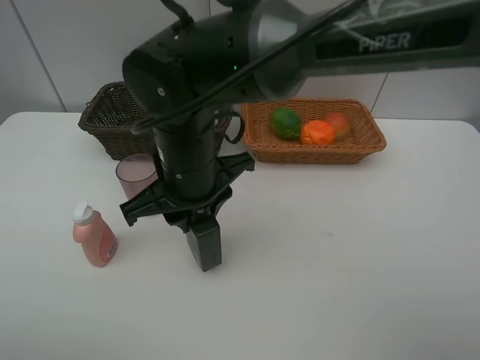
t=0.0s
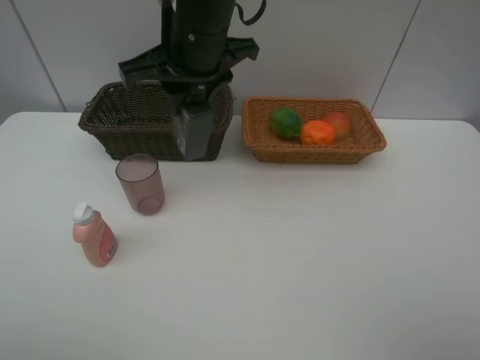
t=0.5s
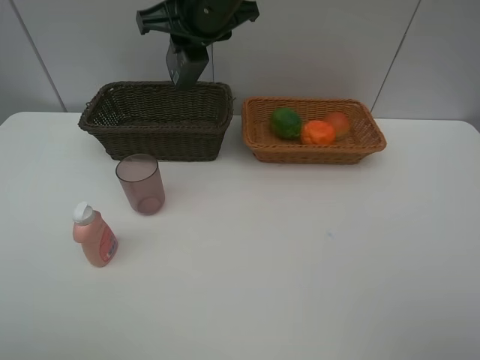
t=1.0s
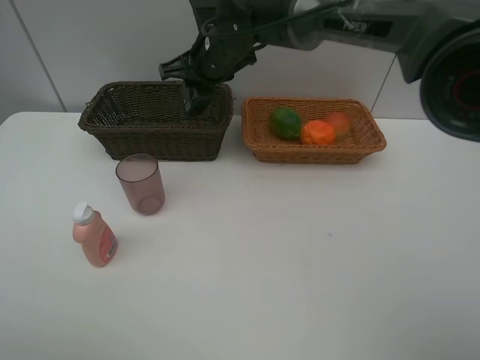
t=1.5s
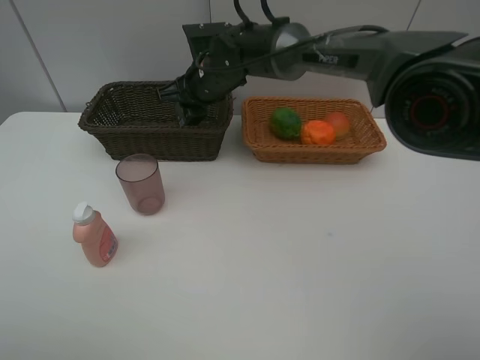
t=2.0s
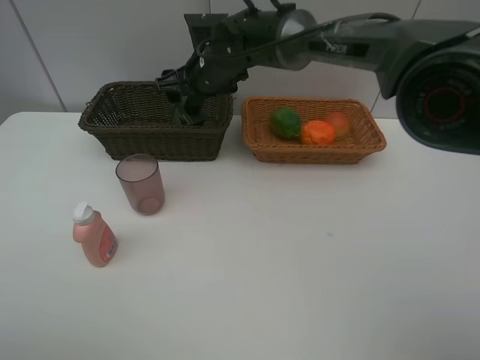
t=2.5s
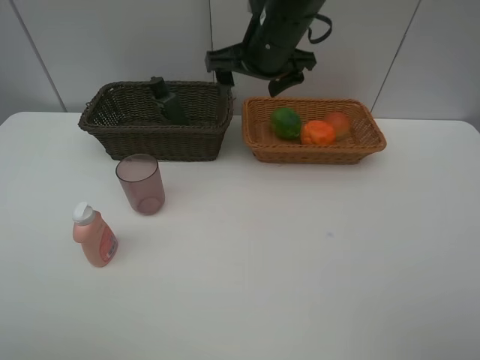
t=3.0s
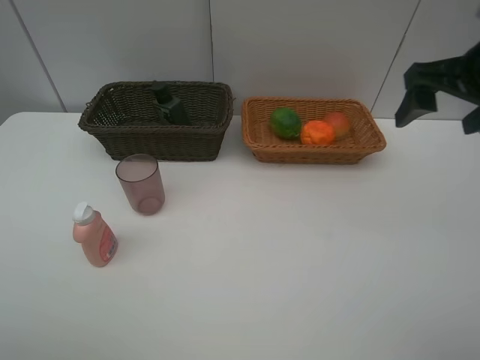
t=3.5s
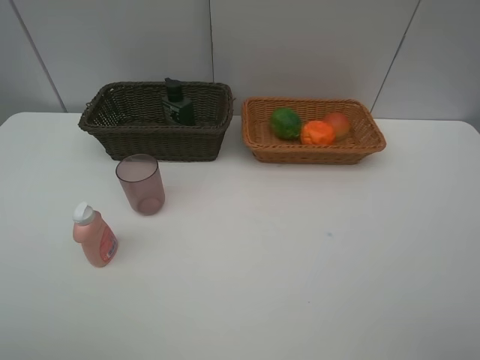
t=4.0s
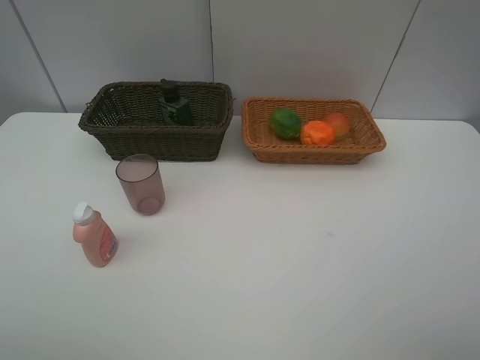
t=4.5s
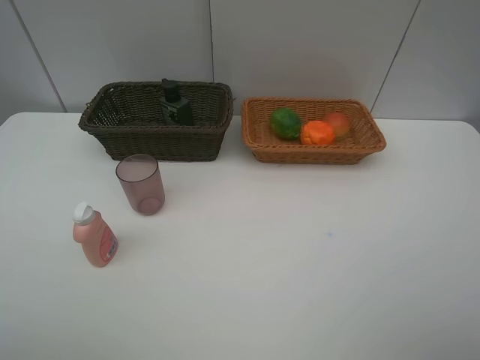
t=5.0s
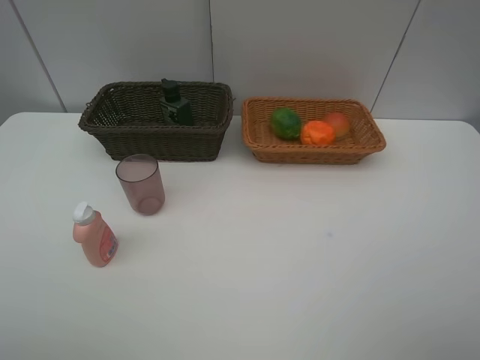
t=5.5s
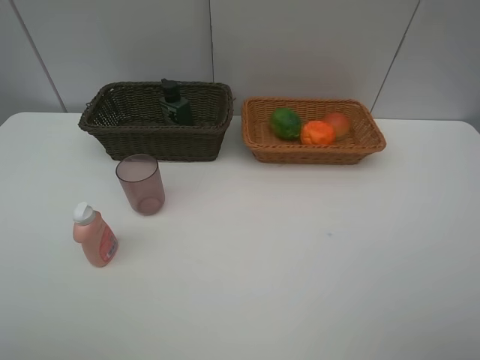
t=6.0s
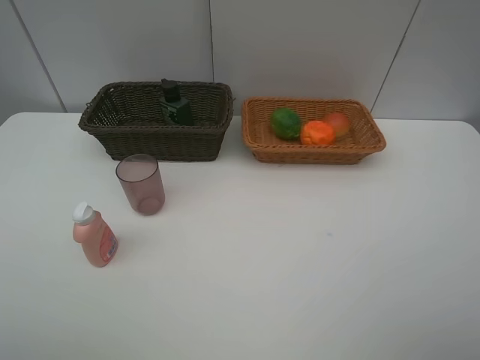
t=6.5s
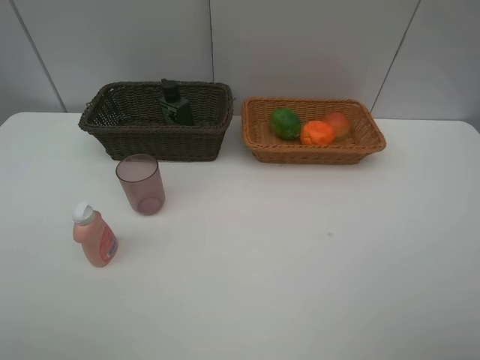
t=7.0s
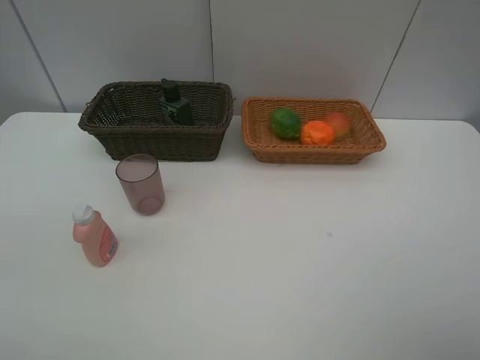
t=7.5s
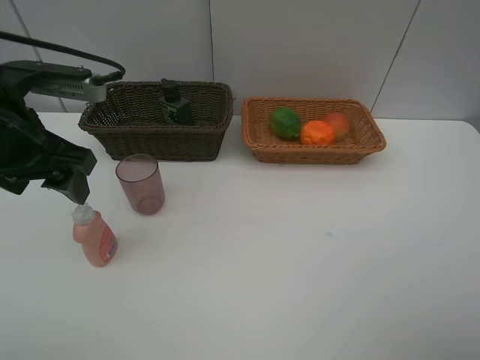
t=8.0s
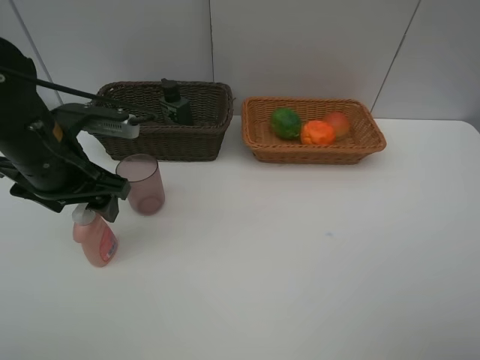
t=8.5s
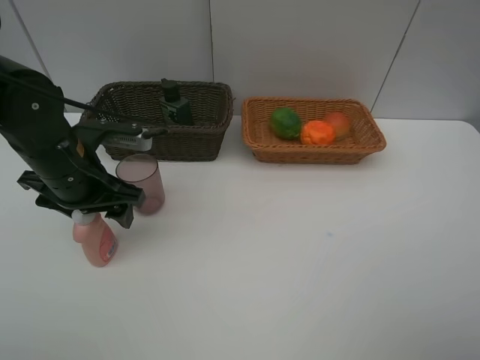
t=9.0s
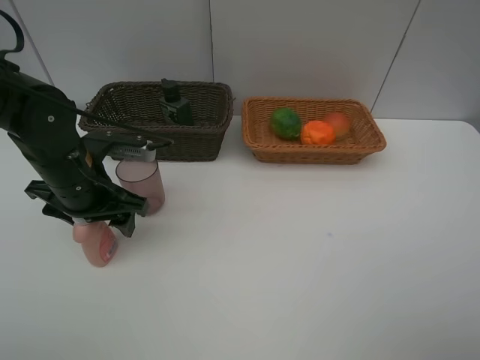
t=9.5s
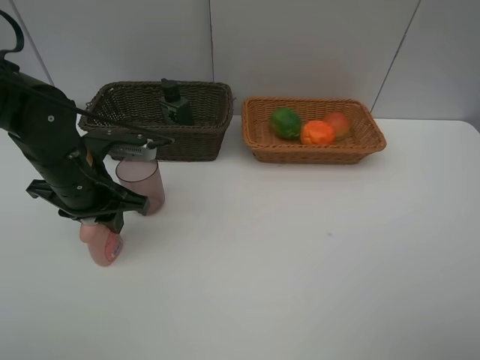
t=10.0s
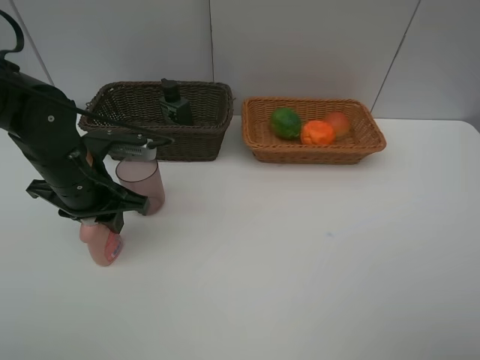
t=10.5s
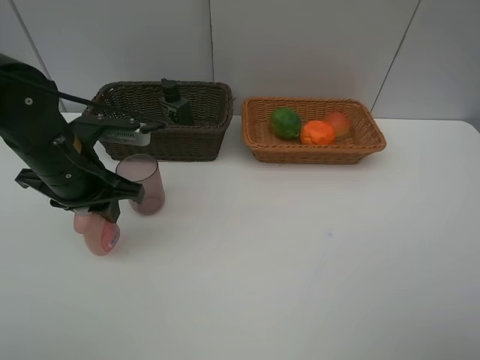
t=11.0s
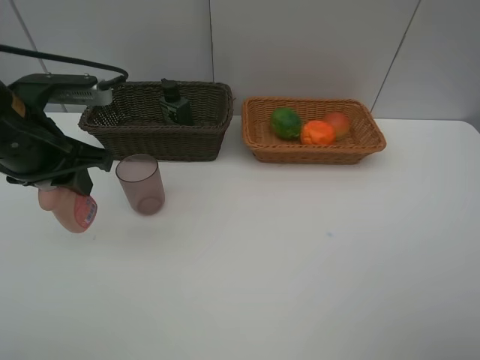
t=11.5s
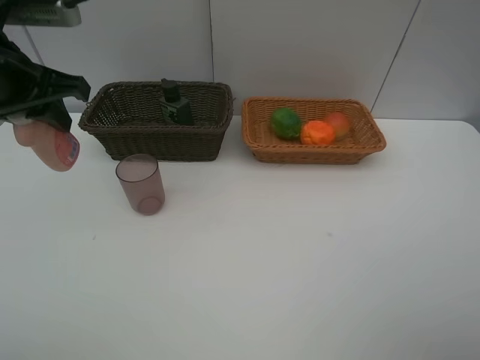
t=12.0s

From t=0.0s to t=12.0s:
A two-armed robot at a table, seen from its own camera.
Task of the whole recording: place multiple objects separately in different baskets.
From t=0.0s to t=2.0s: The right gripper shifts approximately 20 cm forward.
From t=2.0s to t=4.0s: The right gripper moves backward, to the right and upward, roughly 50 cm, and opens up.
From t=6.0s to t=8.0s: The left gripper shifts approximately 25 cm forward.
From t=8.0s to t=10.0s: The left gripper goes roughly 10 cm downward, and closes.
From t=10.0s to t=12.0s: The left gripper travels upward by approximately 15 cm.

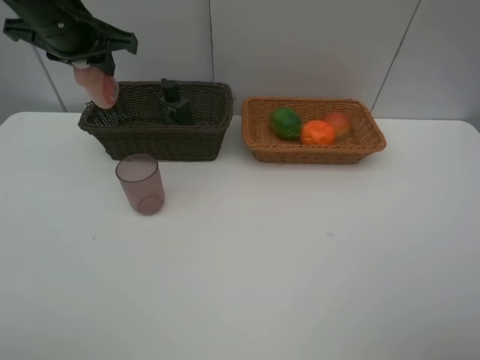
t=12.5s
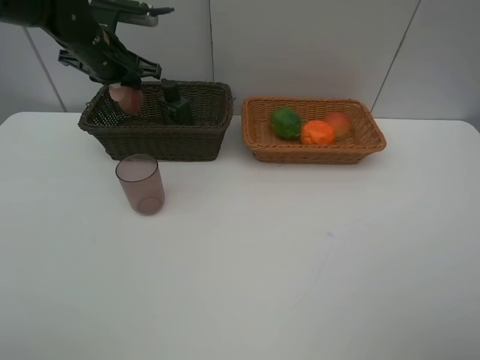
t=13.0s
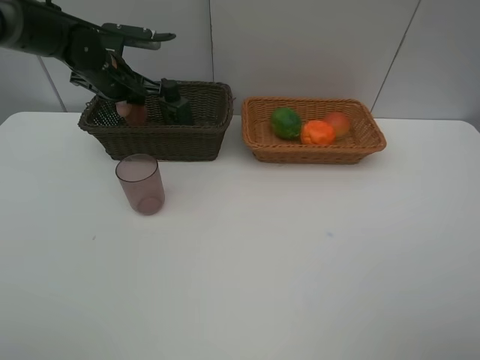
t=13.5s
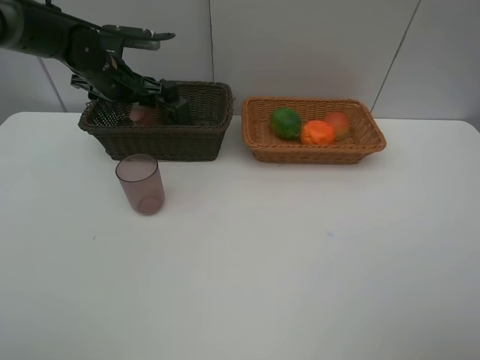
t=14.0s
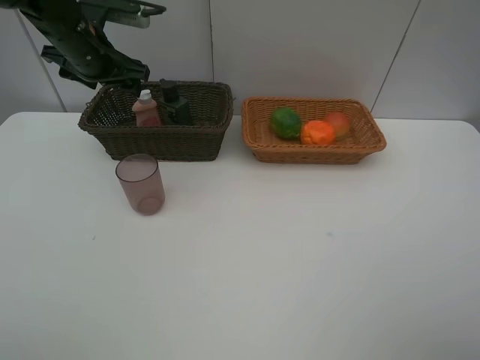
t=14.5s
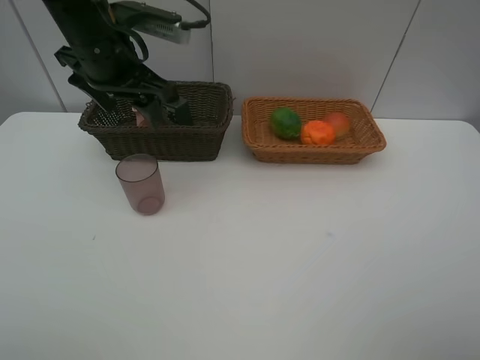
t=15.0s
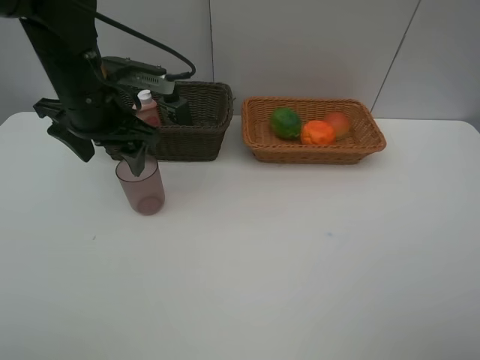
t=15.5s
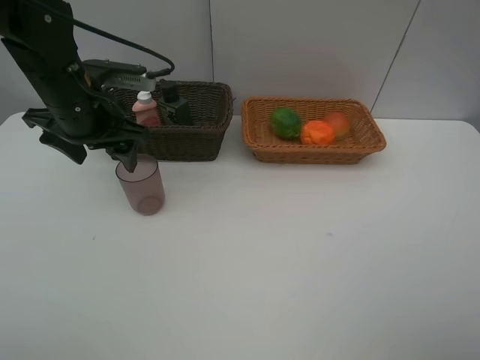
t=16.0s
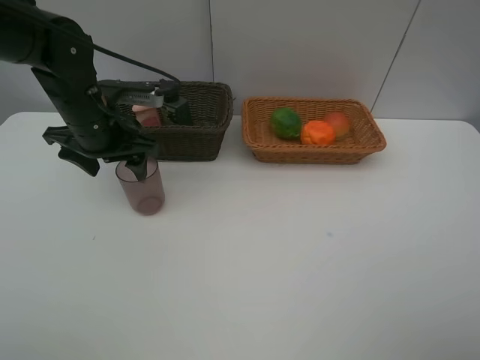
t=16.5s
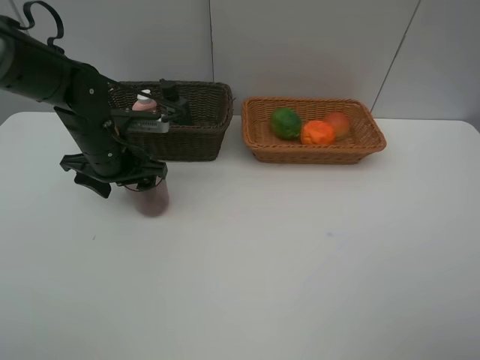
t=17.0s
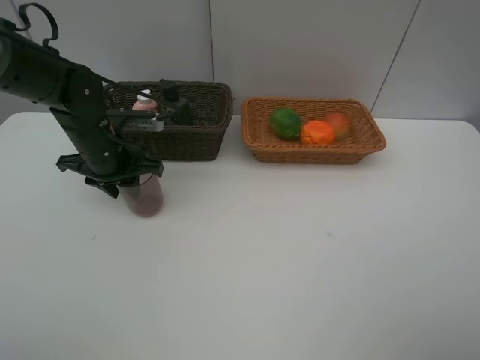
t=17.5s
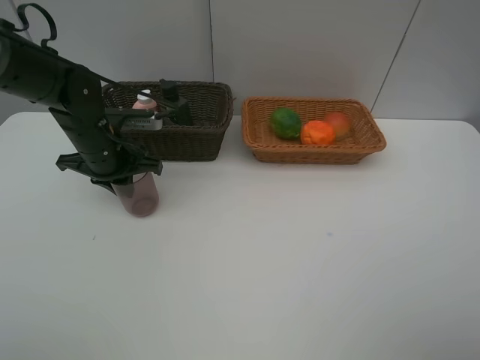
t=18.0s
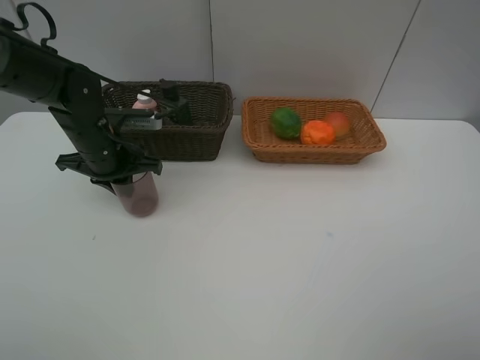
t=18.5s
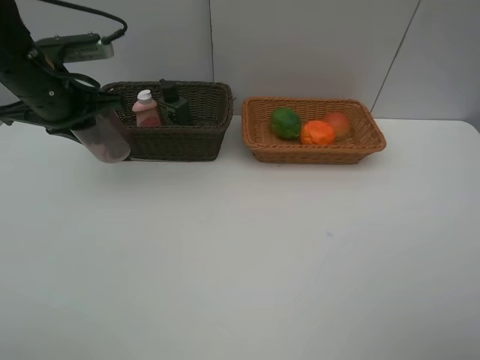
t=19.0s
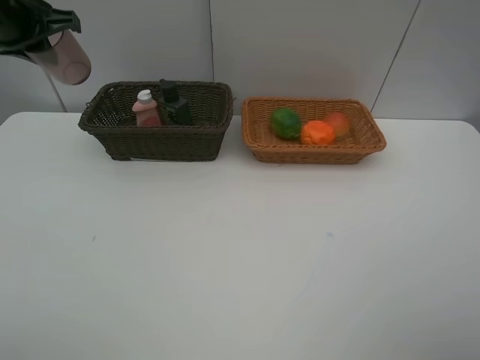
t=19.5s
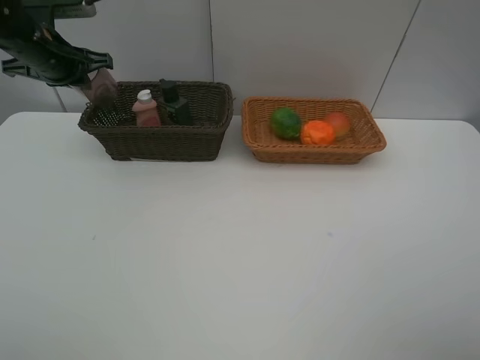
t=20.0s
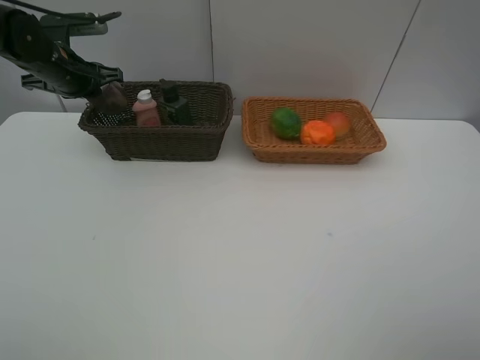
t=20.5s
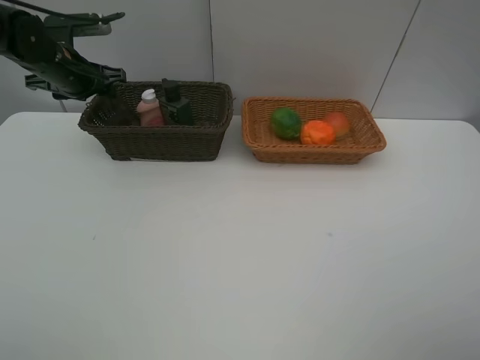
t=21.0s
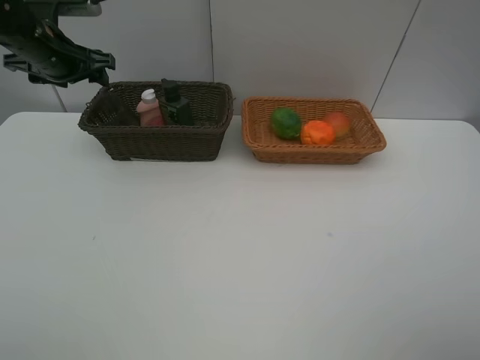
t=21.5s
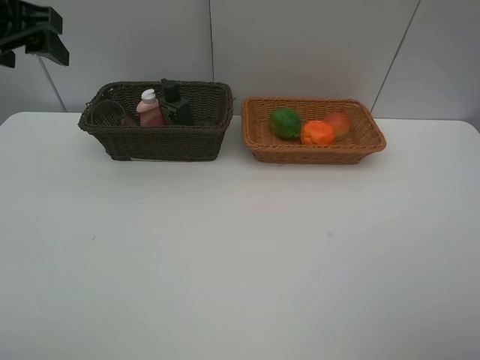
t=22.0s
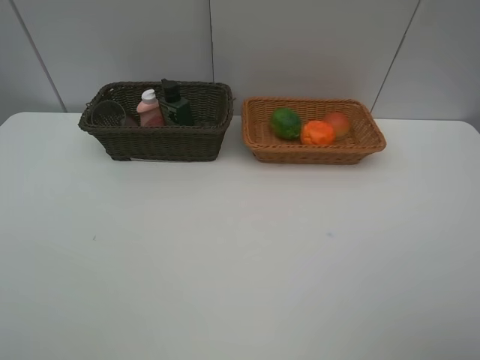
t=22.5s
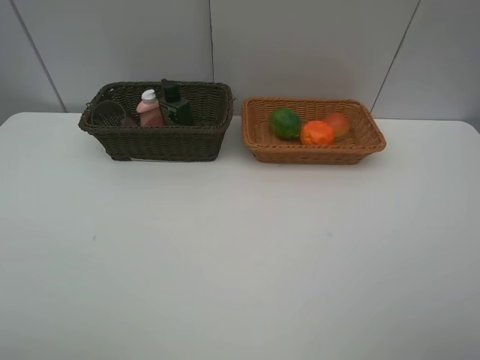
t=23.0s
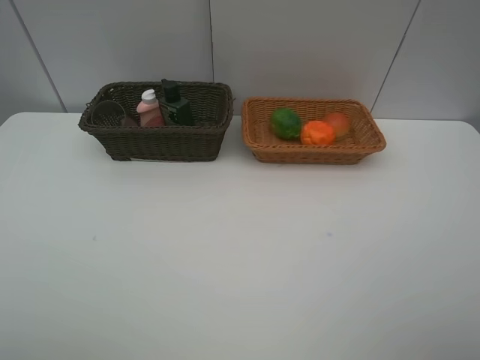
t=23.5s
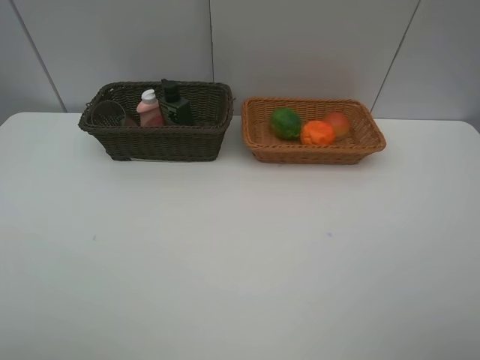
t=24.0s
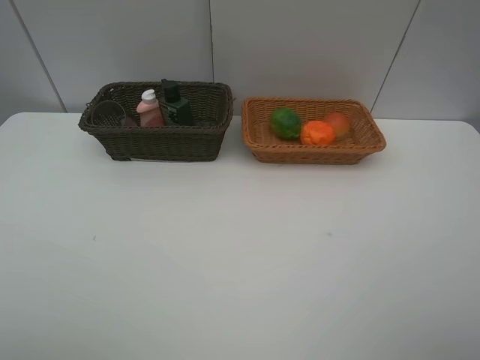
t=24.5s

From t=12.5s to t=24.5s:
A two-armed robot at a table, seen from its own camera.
Task of the whole recording: place multiple objects separately in different baskets.
From t=12.5s to t=14.5s: The left gripper opens up.
From t=14.5s to t=16.5s: The left gripper moves backward and downward, some 10 cm.
From t=16.5s to t=18.5s: The left gripper closes its fingers.
From t=18.5s to t=20.5s: The left gripper goes about 15 cm forward, to the left and upward.
From t=20.5s to t=22.5s: The left gripper travels backward and upward by some 40 cm, and opens.
